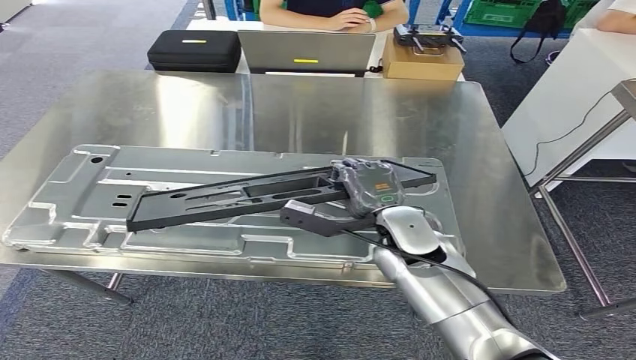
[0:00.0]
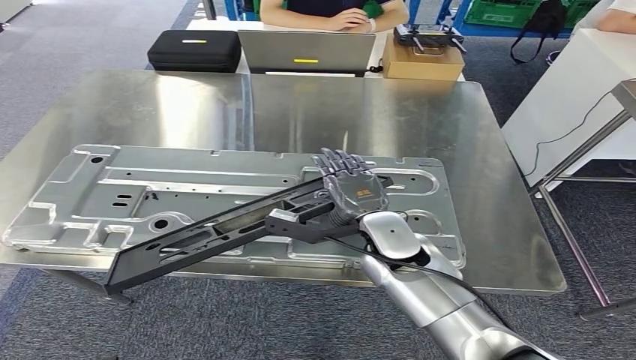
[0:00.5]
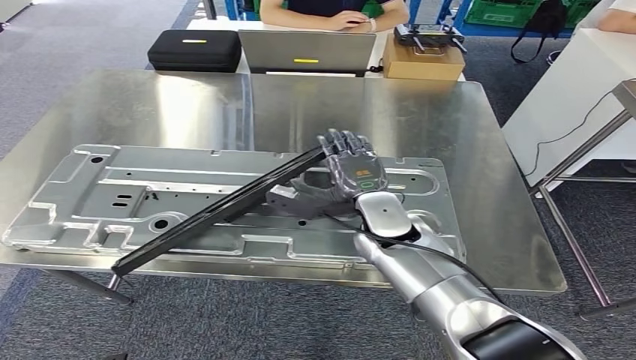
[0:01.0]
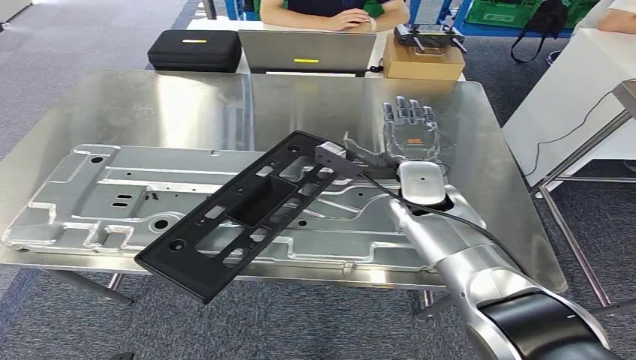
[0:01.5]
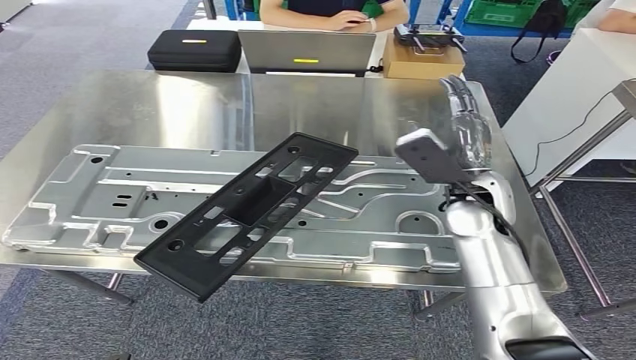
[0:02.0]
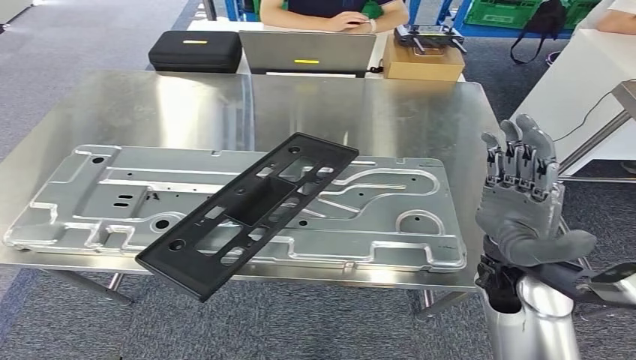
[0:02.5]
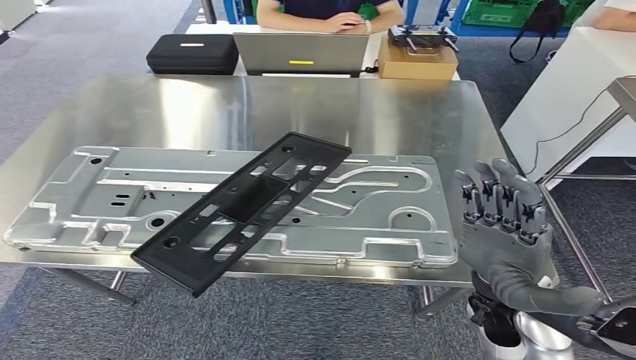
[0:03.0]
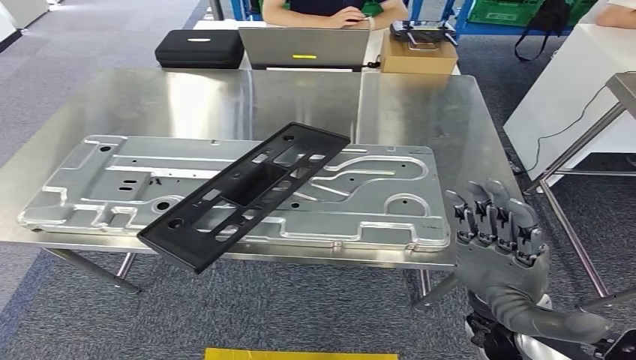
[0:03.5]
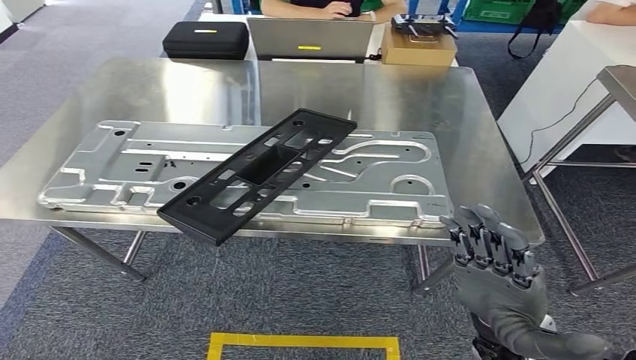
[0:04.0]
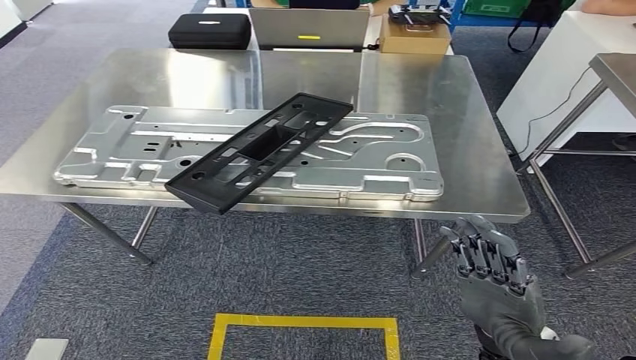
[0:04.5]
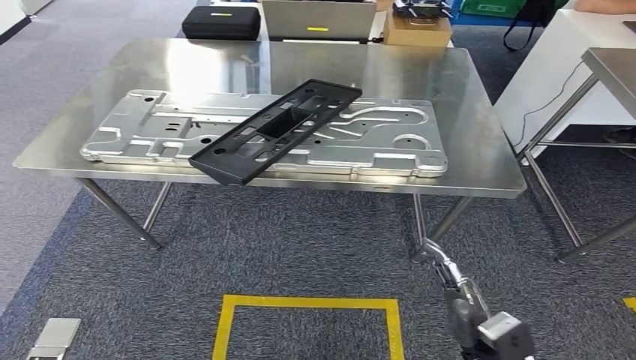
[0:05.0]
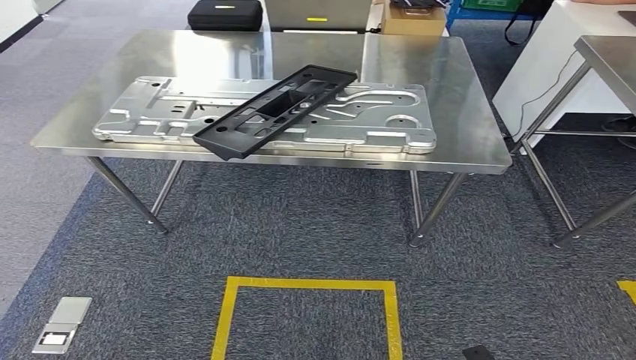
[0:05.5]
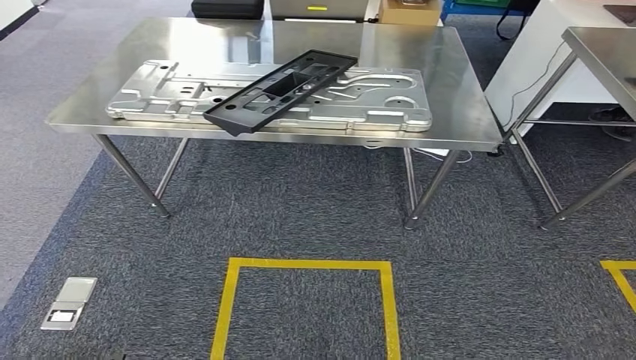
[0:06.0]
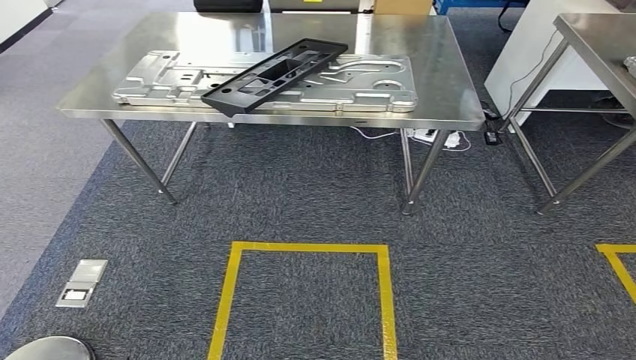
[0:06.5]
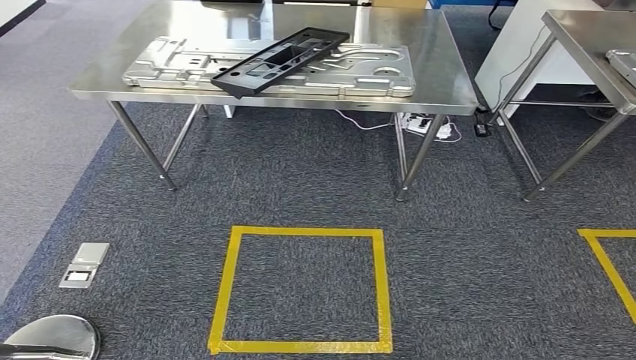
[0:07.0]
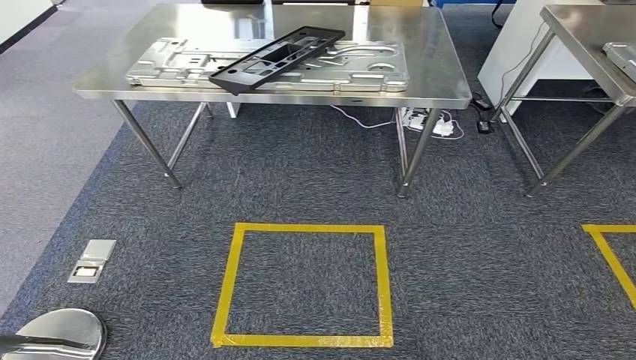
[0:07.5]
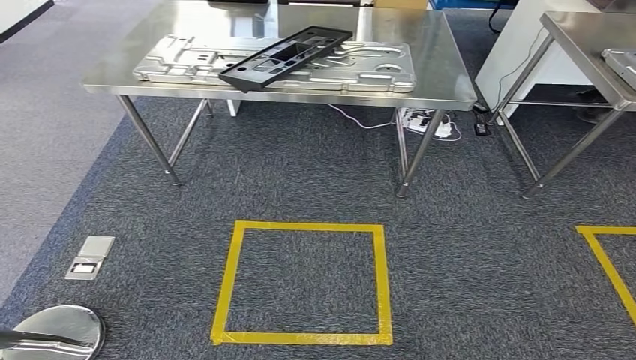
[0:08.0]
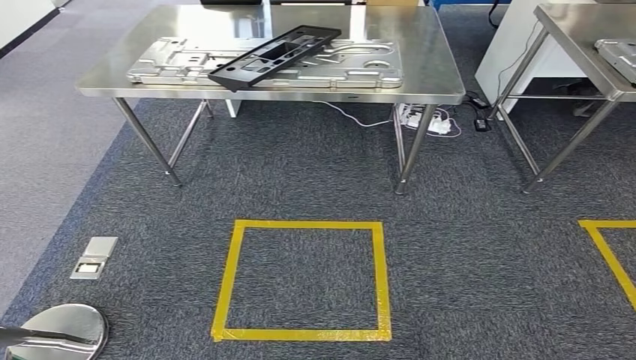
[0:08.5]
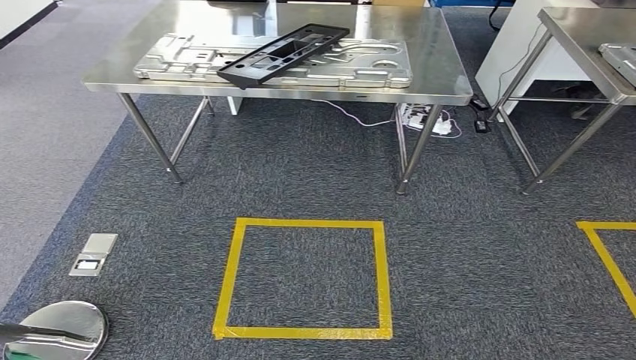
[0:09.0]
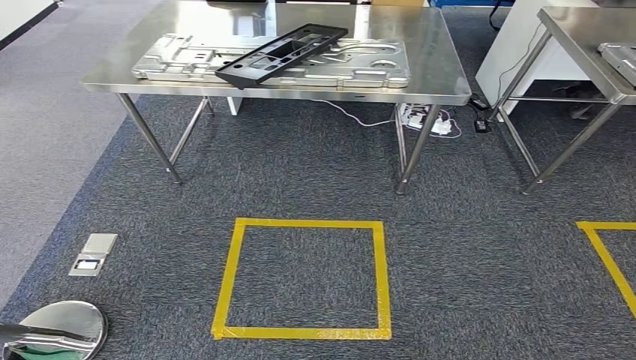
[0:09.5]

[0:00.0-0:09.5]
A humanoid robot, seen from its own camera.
Step, 0:00.0 to 0:02.5: Insert the small component into the corresponding slot on the workbench.
Step, 0:03.0 to 0:09.5: Move to the initial position at the workbench.
0:07.5 to 0:09.5: The hands make only small movements.
